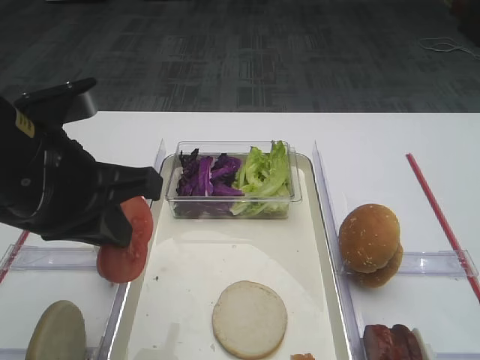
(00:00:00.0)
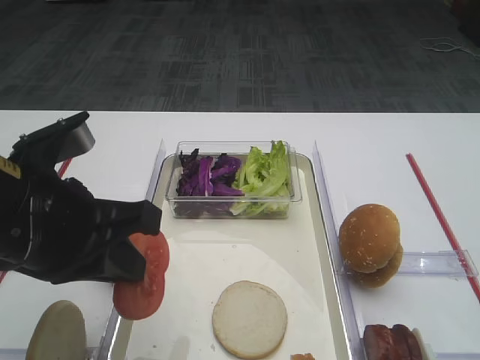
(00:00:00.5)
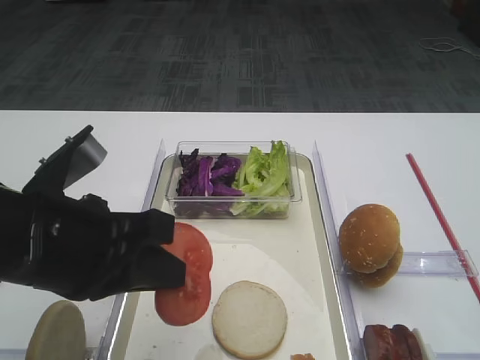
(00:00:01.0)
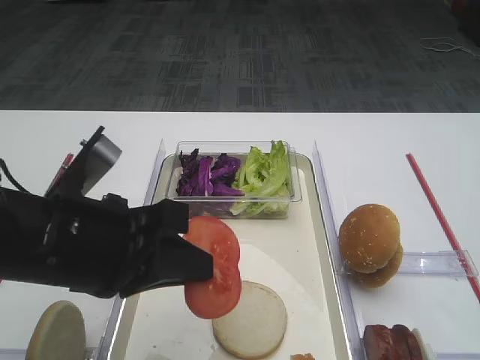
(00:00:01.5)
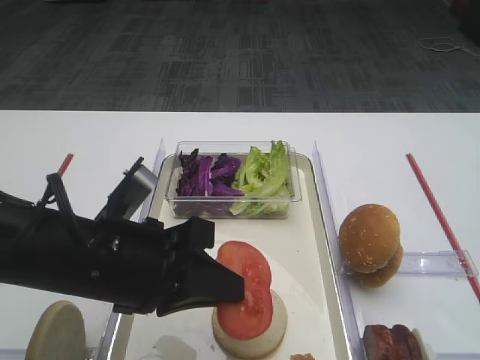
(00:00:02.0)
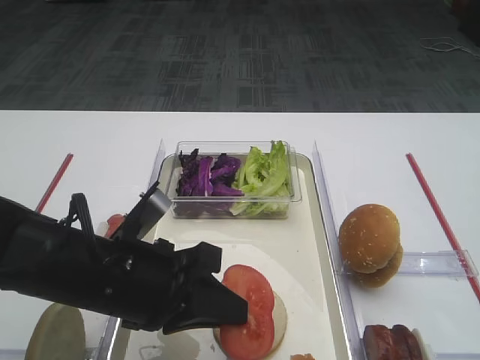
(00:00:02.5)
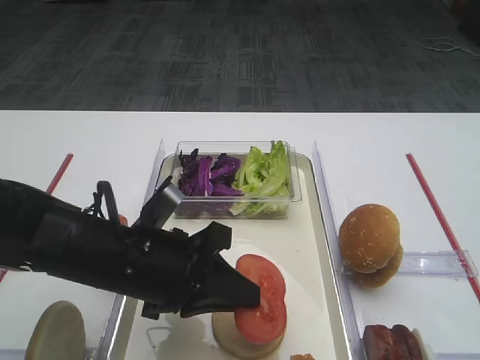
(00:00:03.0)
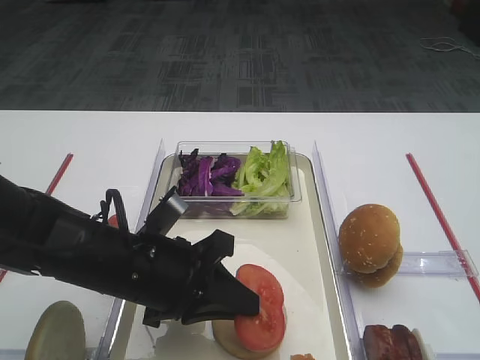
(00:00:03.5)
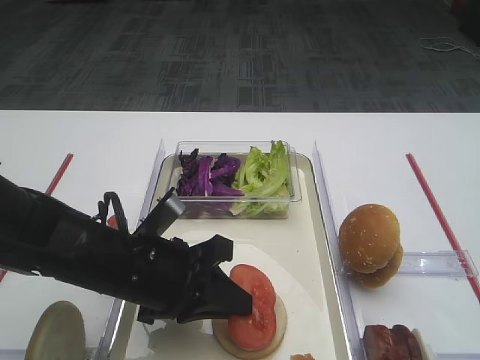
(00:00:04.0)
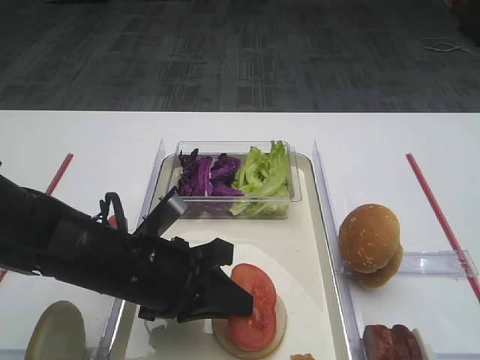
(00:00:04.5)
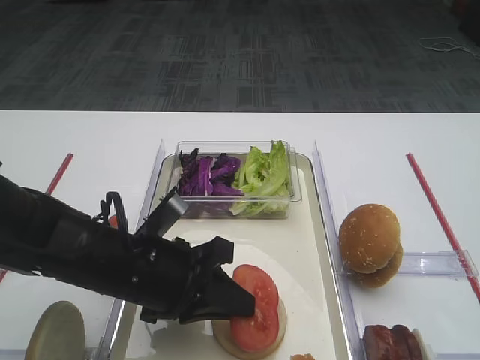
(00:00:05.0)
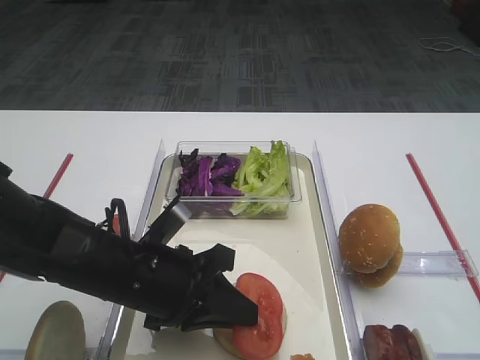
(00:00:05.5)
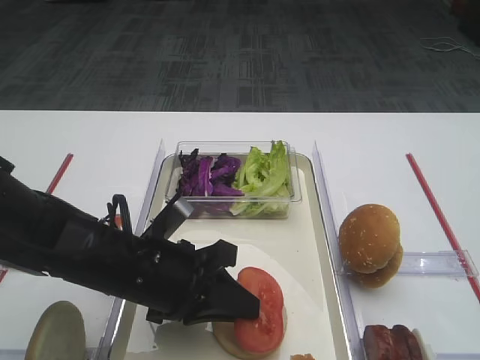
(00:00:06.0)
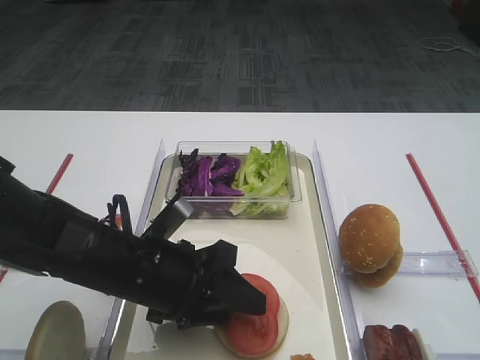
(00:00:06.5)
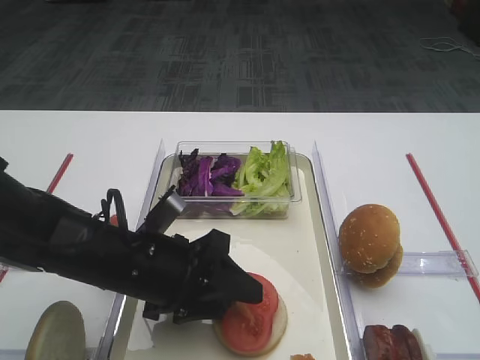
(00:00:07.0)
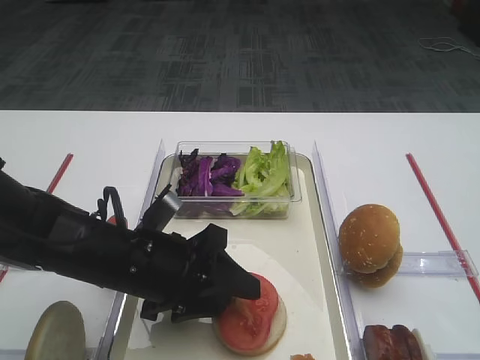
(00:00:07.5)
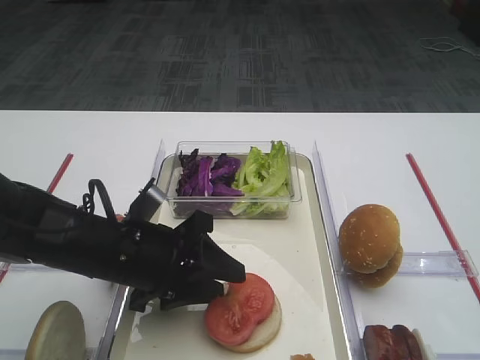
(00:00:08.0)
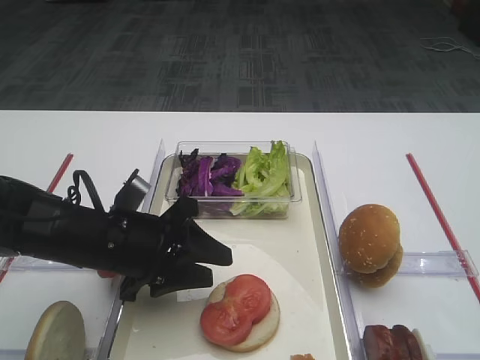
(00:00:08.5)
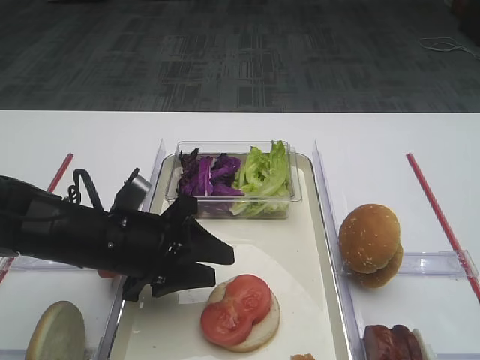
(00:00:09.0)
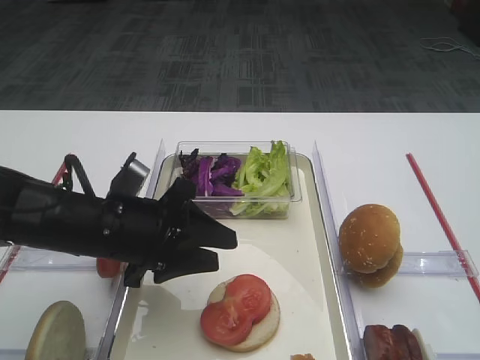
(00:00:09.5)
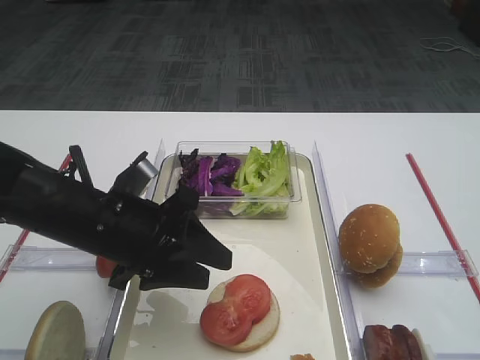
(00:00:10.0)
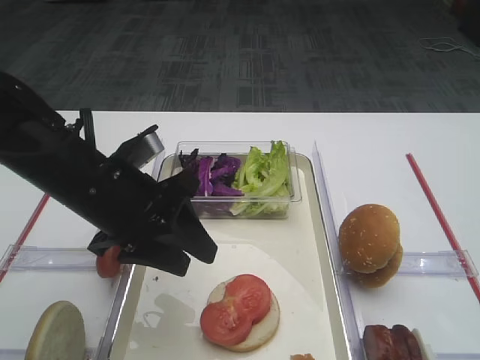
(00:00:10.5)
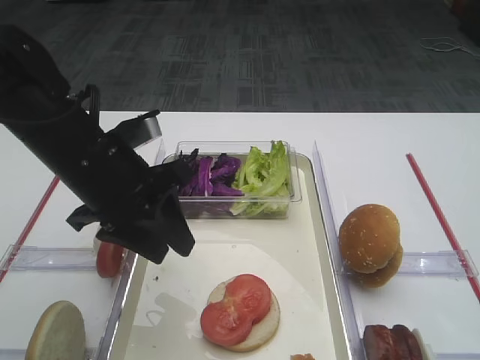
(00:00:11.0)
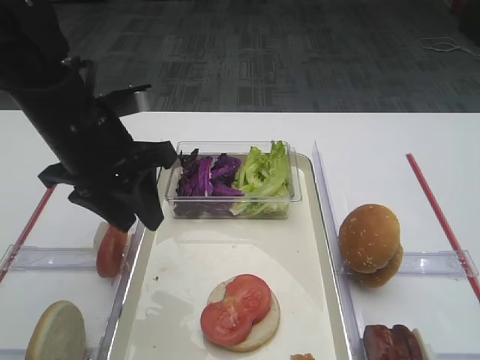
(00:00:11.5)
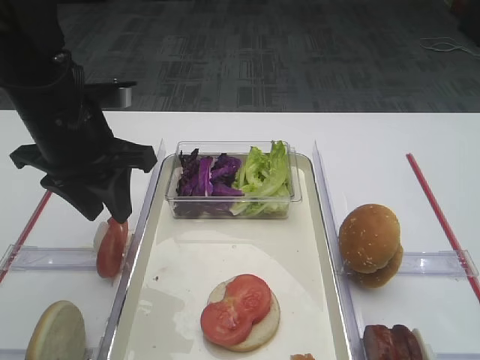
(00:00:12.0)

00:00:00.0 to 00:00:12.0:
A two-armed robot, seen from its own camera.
Step, 00:00:00.0 to 00:00:09.5: Place the tomato slice on the bread slice with the left gripper.
00:00:00.0 to 00:00:02.0: The left gripper is displaced downward by some 10 cm.
00:00:02.0 to 00:00:04.0: The left gripper heads downward, covering roughly 5 cm.
00:00:04.0 to 00:00:06.0: Neither gripper changes place.
00:00:06.0 to 00:00:08.0: The left gripper opens its fingers.
00:00:08.0 to 00:00:10.0: The grippers stay close to where they were, moving slightly.
00:00:10.0 to 00:00:12.0: The left gripper heads upward and forward, covering about 10 cm.

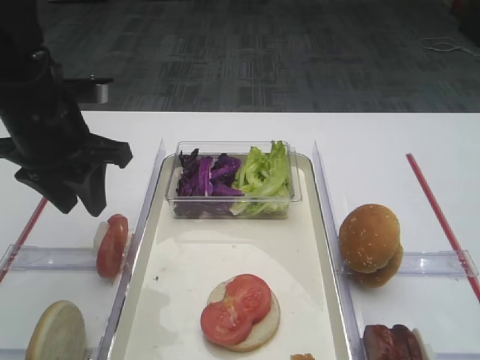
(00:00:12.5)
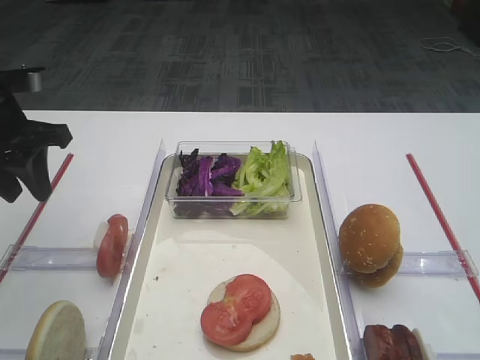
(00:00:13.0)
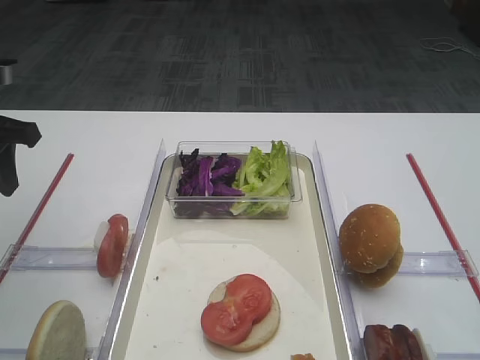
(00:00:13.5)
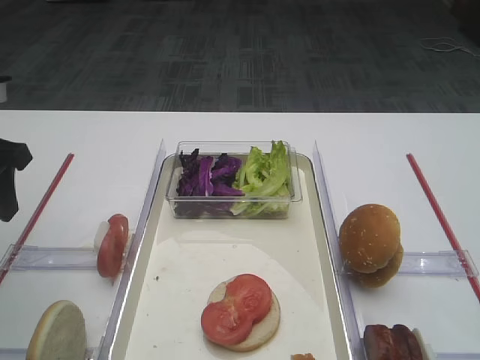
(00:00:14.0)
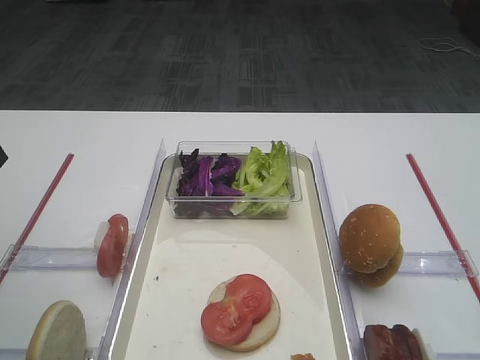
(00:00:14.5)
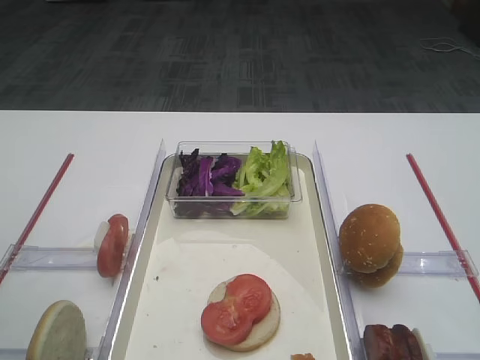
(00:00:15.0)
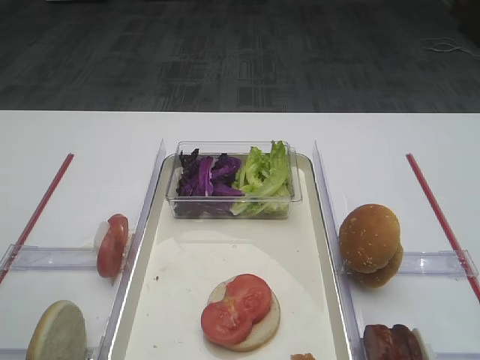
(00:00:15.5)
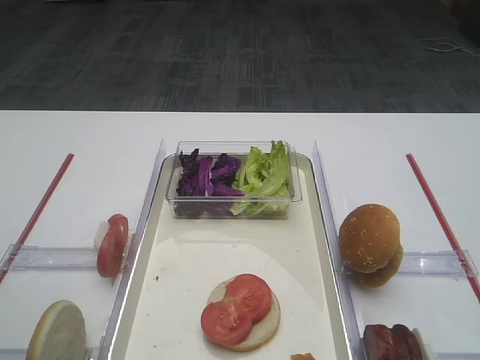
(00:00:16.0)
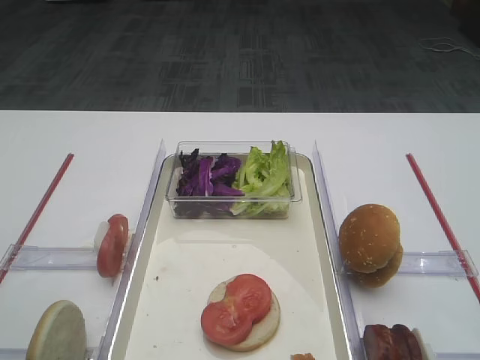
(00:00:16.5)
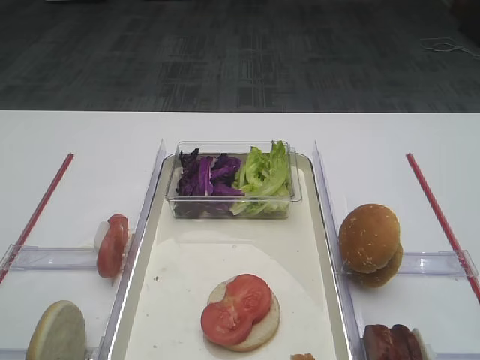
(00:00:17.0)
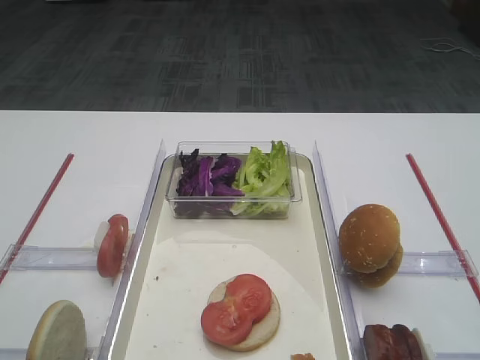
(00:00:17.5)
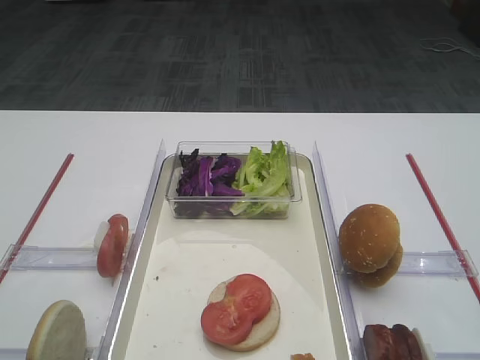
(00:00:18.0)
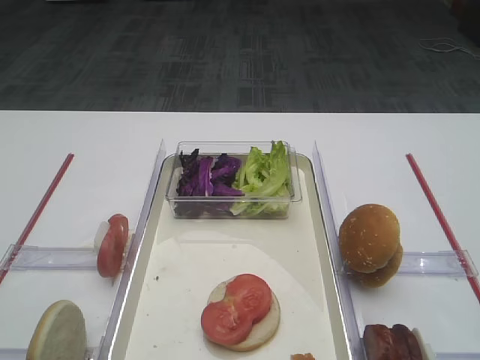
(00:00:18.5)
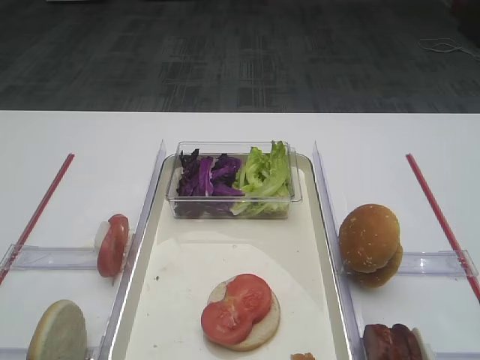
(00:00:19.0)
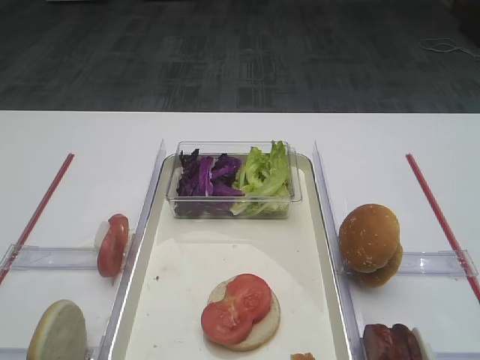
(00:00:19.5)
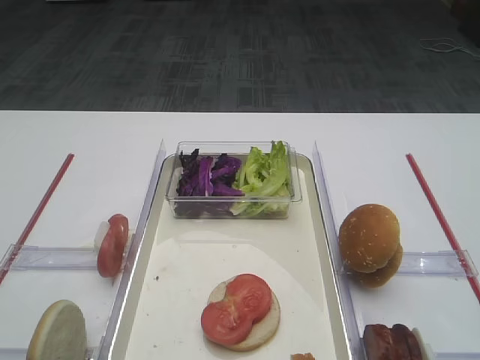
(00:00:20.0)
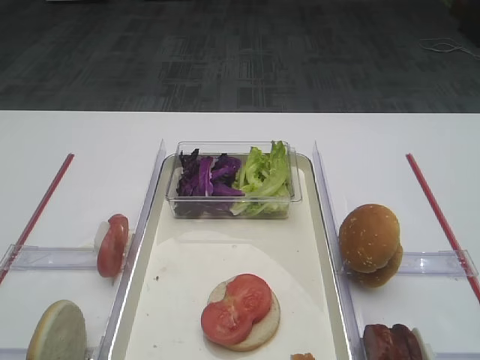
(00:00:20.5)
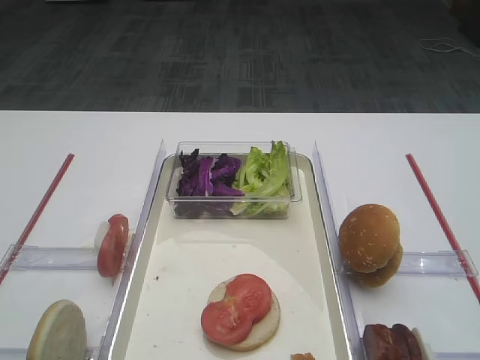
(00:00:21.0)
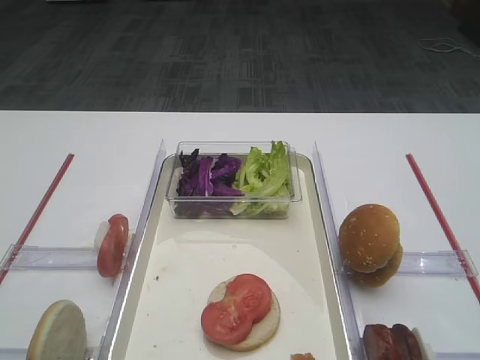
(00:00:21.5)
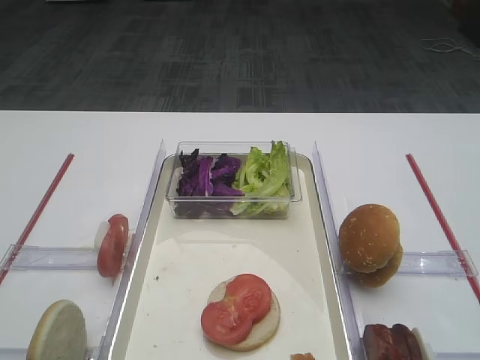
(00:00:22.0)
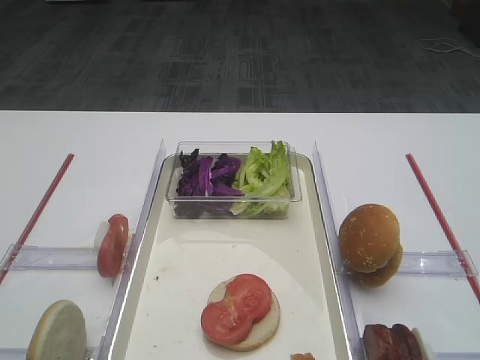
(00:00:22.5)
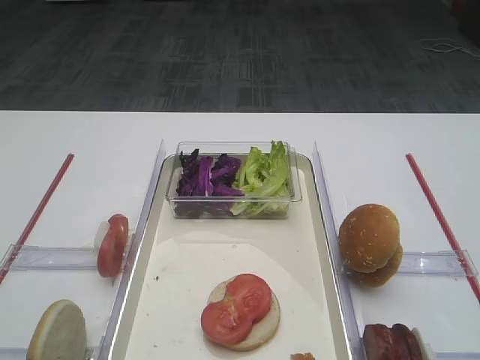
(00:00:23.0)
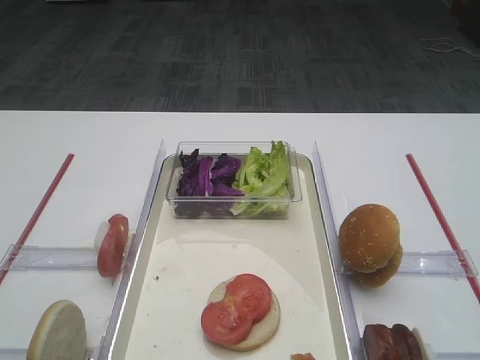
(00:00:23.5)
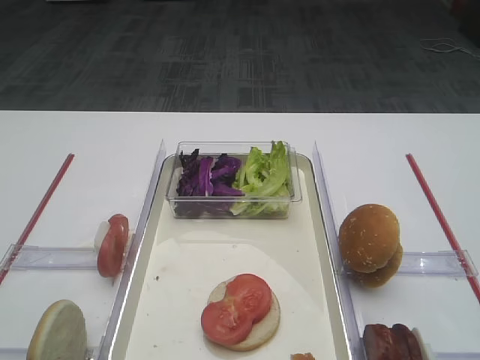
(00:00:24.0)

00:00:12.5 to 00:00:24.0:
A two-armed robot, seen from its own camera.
00:00:12.5 to 00:00:14.5: The left gripper travels to the left and backward by roughly 10 cm.

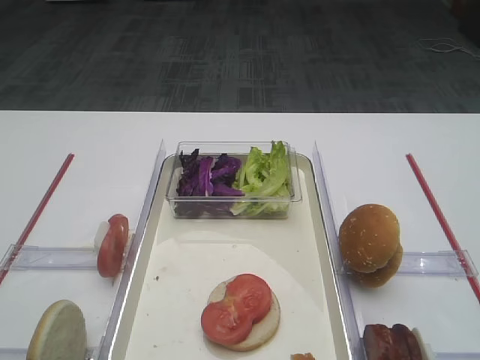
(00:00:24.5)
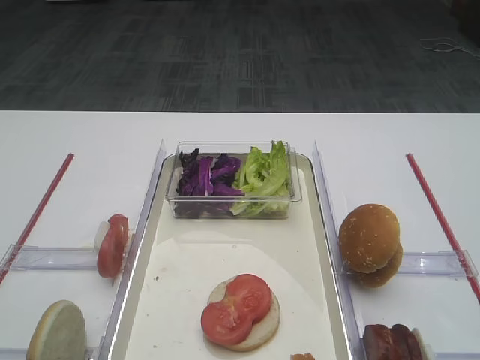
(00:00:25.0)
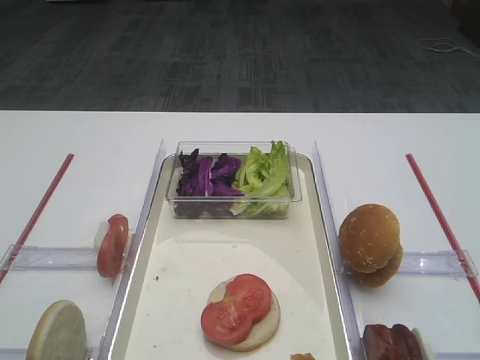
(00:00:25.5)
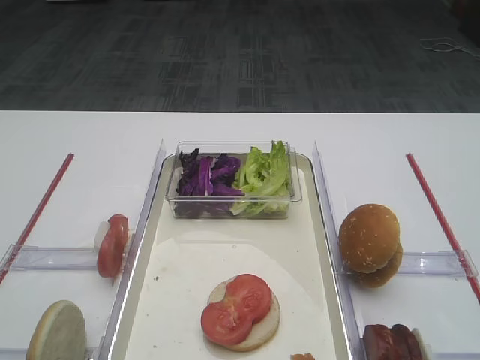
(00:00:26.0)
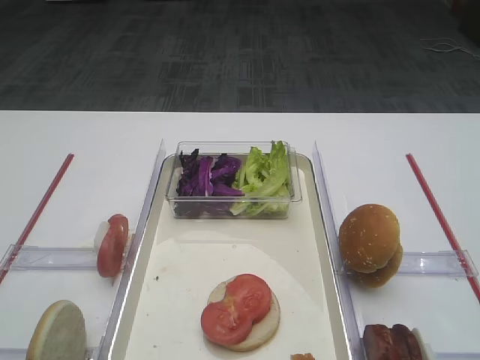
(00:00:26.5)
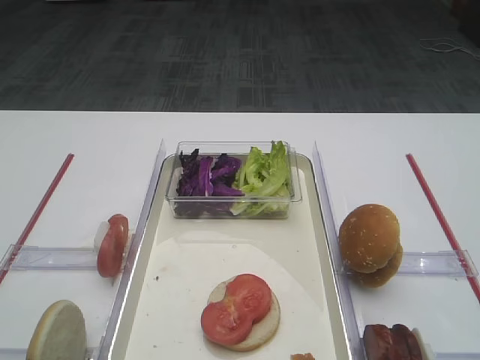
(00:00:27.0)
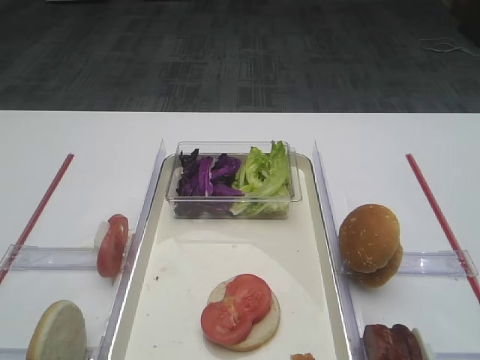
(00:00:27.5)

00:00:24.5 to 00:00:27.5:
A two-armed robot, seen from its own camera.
00:00:24.5 to 00:00:27.5: Neither gripper changes place.
